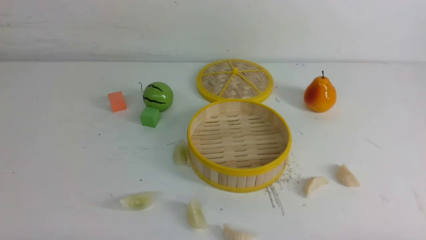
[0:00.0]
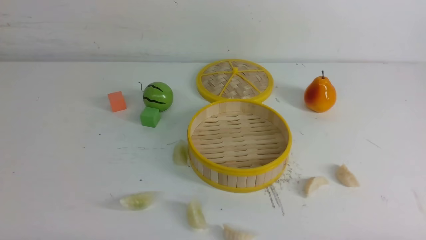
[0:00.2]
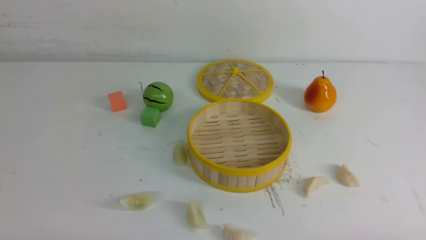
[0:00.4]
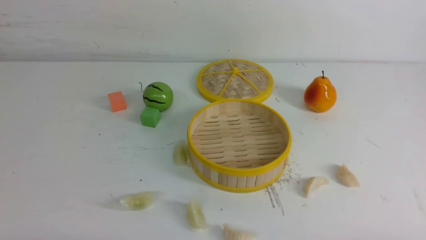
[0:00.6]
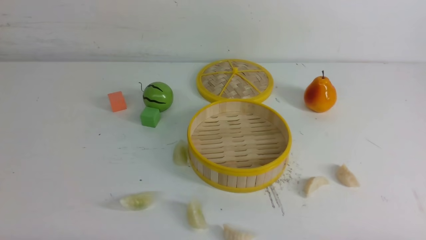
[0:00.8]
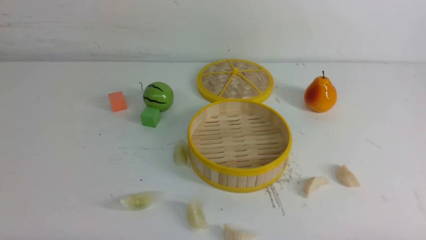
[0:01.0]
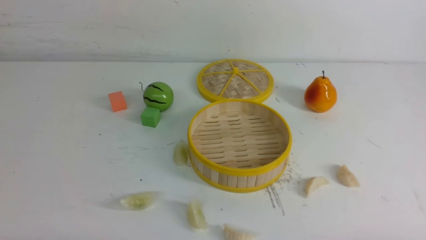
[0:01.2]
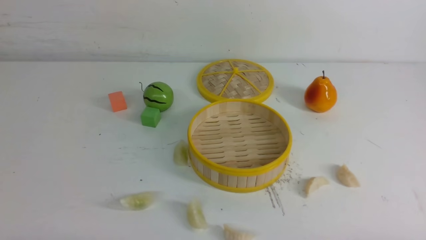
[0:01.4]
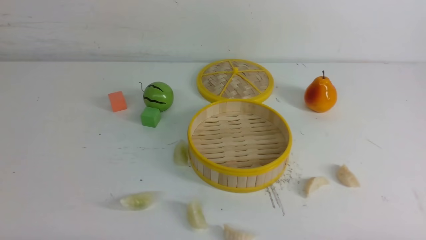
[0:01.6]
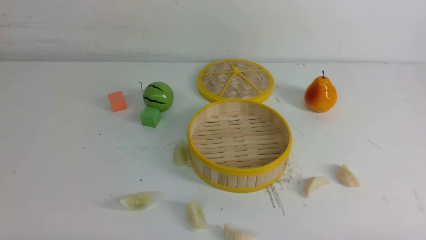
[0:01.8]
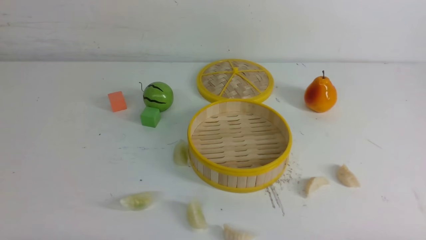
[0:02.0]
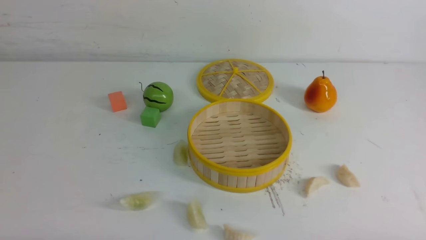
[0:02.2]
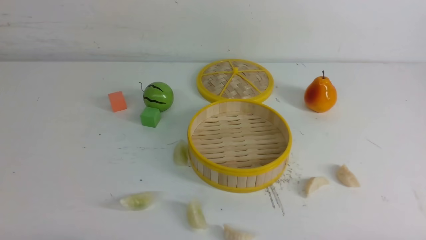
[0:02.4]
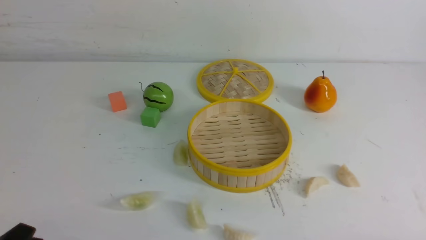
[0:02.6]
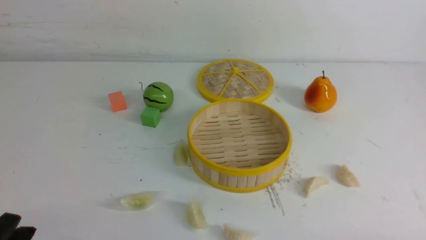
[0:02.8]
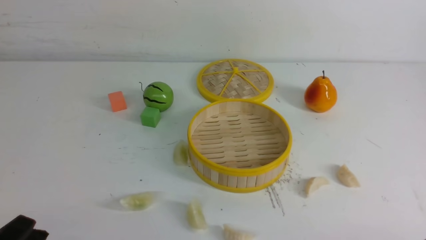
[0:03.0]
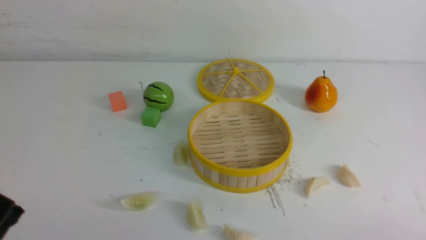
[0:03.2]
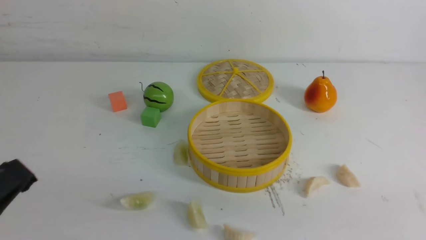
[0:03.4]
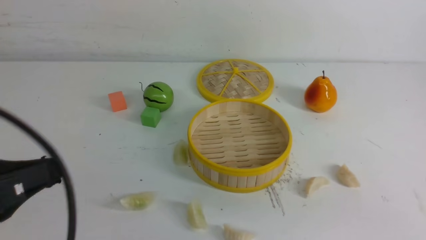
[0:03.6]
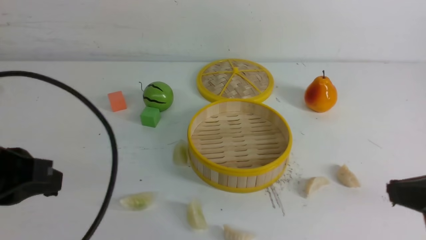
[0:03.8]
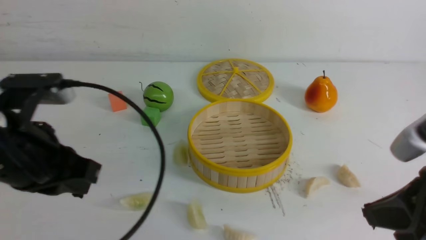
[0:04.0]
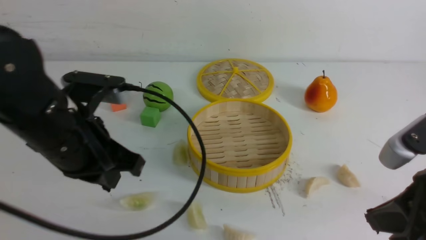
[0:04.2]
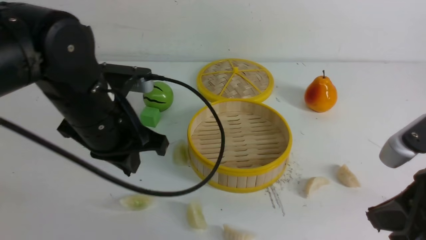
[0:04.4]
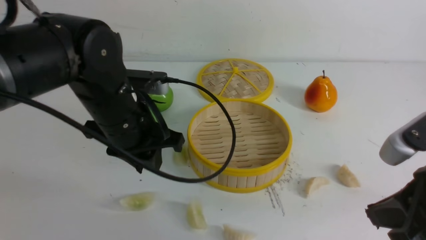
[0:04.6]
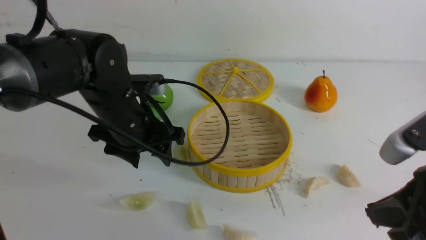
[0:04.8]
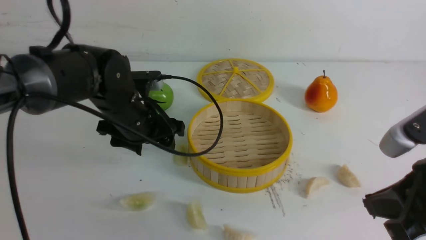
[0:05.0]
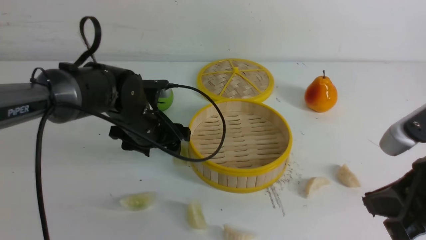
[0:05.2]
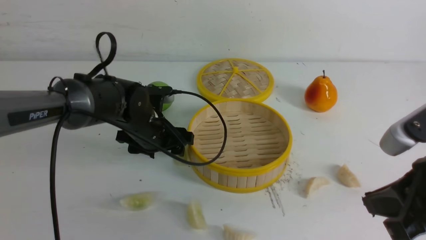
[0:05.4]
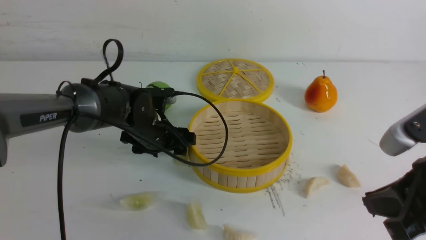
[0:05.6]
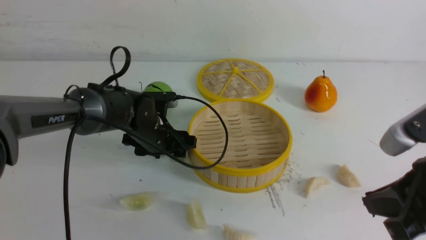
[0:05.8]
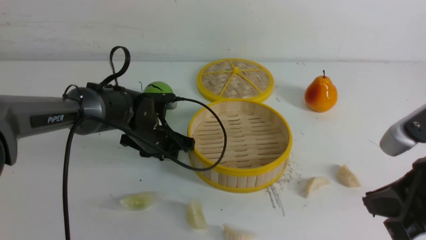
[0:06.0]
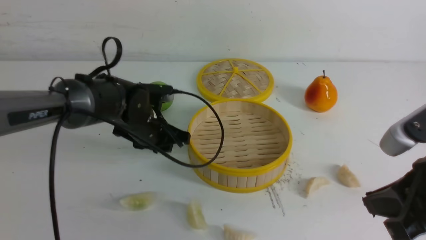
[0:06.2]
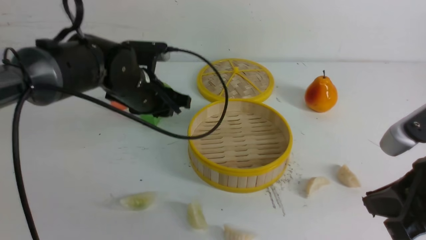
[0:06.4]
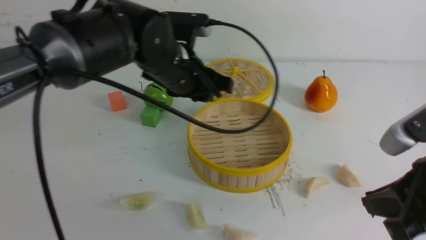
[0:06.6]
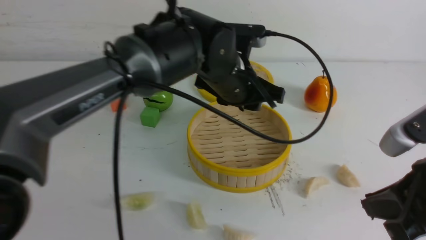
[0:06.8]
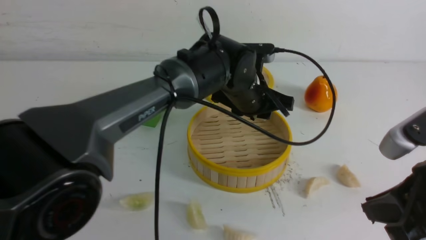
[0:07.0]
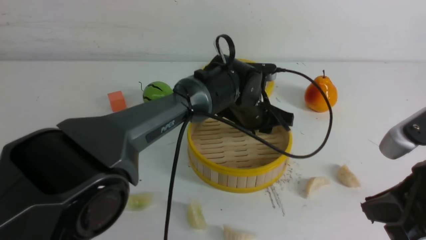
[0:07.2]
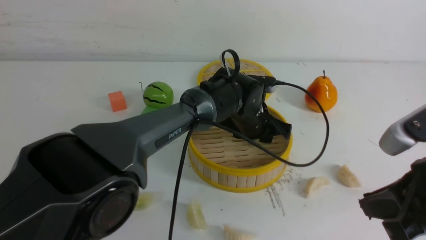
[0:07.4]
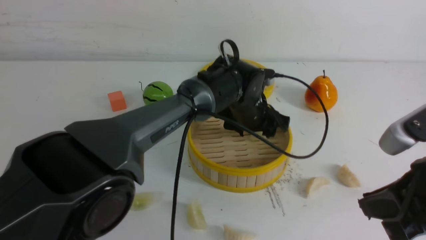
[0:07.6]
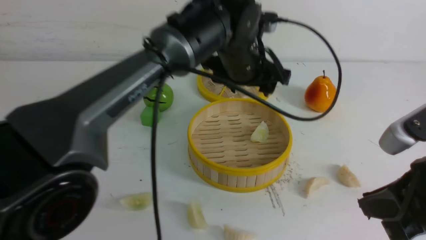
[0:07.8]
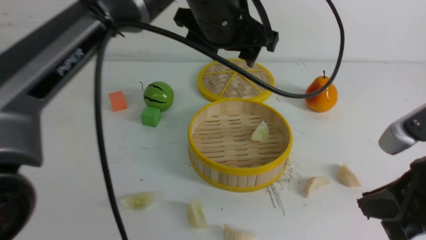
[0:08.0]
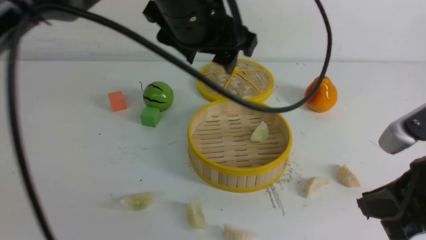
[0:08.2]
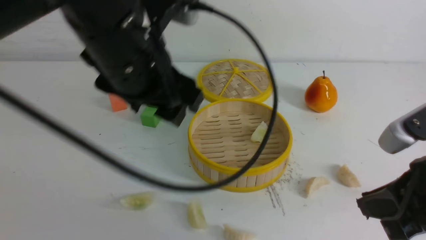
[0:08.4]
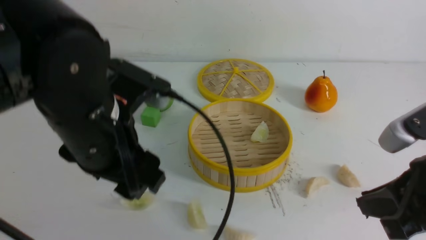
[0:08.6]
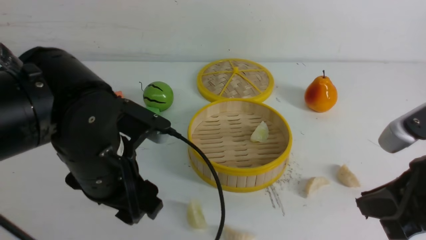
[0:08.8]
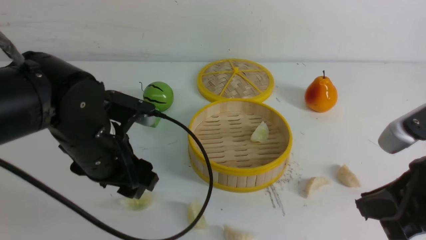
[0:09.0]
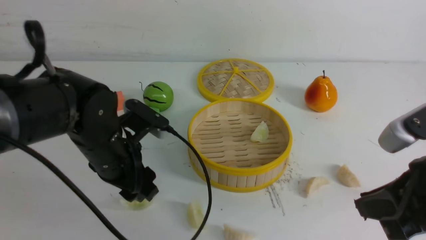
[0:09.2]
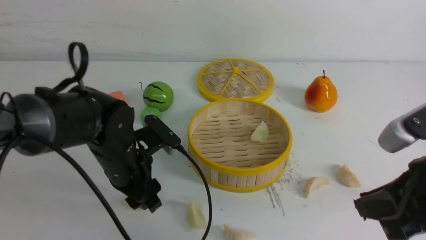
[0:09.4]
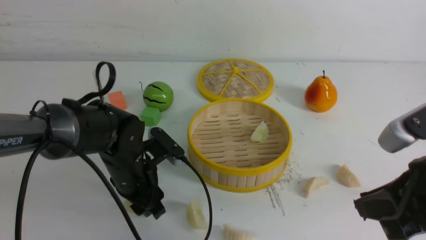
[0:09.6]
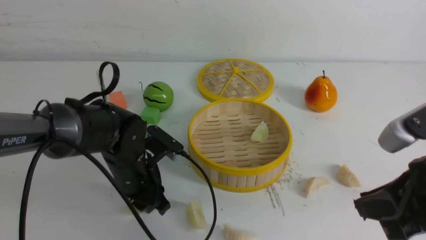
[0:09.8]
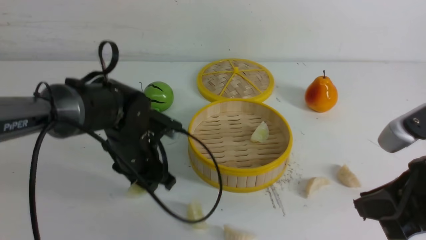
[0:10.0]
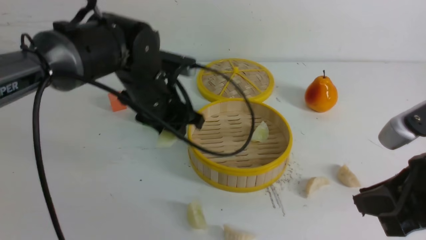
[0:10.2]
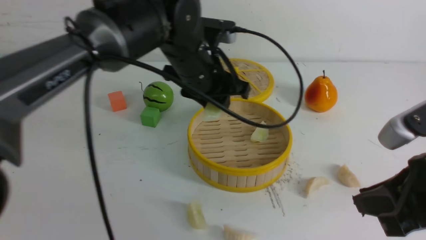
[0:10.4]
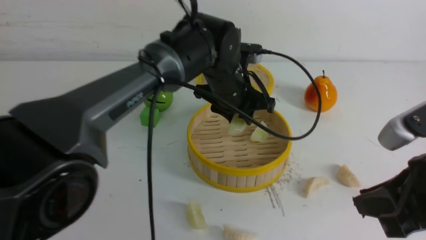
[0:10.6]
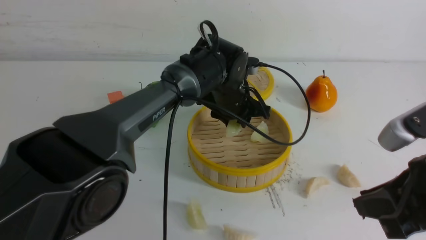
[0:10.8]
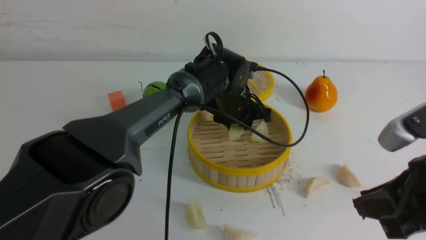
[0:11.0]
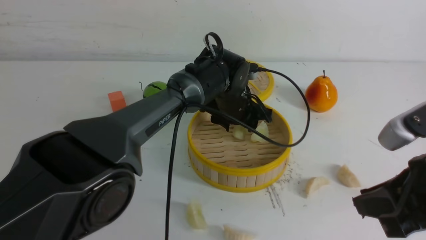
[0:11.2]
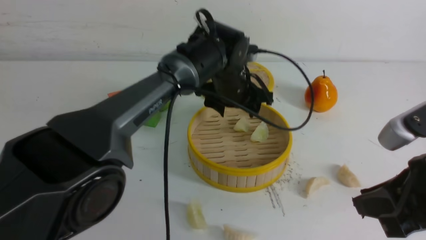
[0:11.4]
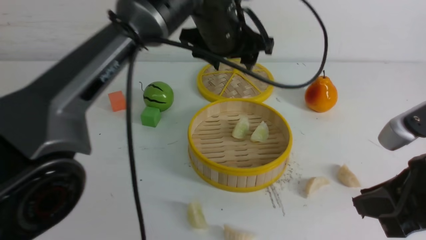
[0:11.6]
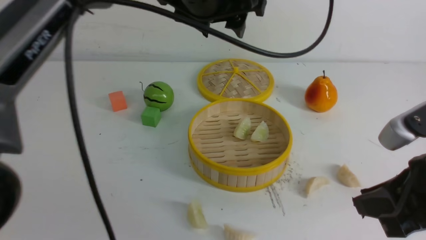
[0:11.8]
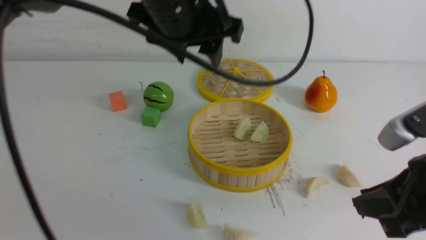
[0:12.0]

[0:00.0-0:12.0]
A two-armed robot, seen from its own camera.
Task of the whole recording: put the dumplings into the steamer on the white table.
Step, 0:00.0 to 0:06.2: use the left arm to grab a dumpling.
Step, 0:06.4 to 0:07.6: use the left arm to put the dumpling into the steamer.
Step, 0:07.8 to 0:10.0: use the left arm to grab a dumpling.
Step, 0:10.2 to 0:11.4: use the left arm to put the dumpling into the steamer.
0:00.0 to 0:01.6: The two grippers keep their place.
0:01.6 to 0:03.0: The left gripper changes place by approximately 5 cm.
0:03.0 to 0:04.4: The right gripper goes some 15 cm forward, upward and to the left, and closes its fingers, while the left gripper shifts some 25 cm forward and to the right.
0:04.4 to 0:06.0: The left gripper moves downward and forward, approximately 20 cm, and opens.
0:06.0 to 0:07.6: The left gripper goes about 20 cm to the right and upward.
0:07.6 to 0:09.0: The left gripper travels to the left and backward by approximately 25 cm.
0:09.0 to 0:10.4: The left gripper heads forward and to the right, covering about 15 cm, and closes.
0:10.4 to 0:12.0: The left gripper moves upward and backward, about 15 cm.

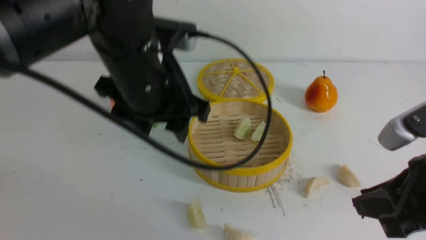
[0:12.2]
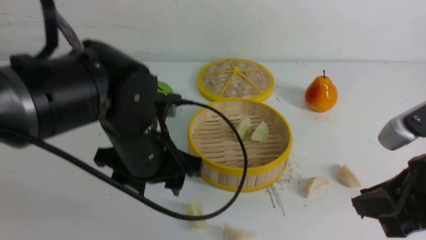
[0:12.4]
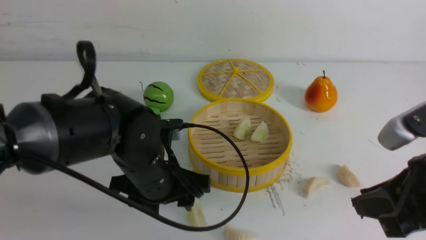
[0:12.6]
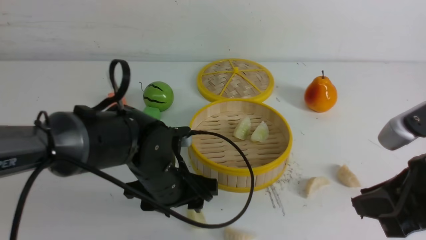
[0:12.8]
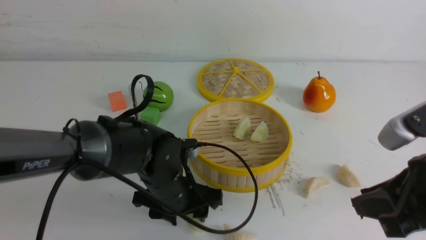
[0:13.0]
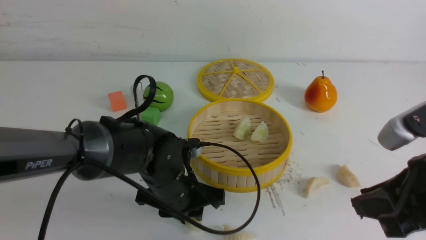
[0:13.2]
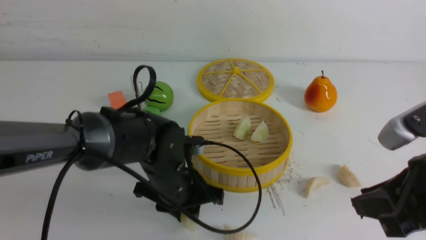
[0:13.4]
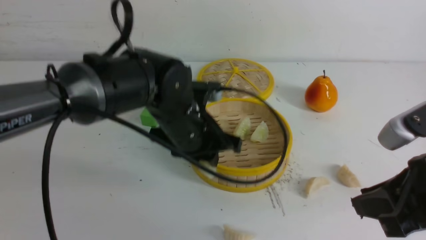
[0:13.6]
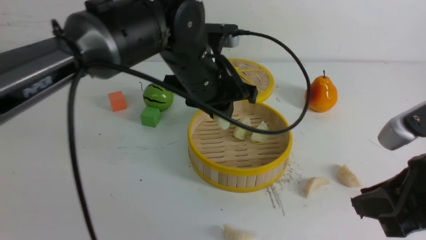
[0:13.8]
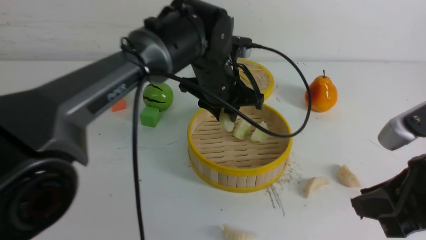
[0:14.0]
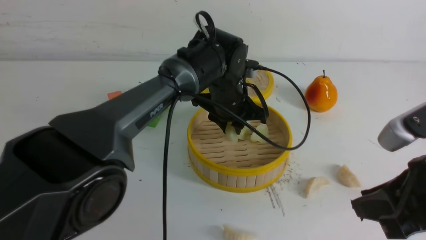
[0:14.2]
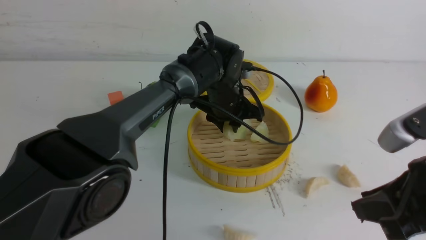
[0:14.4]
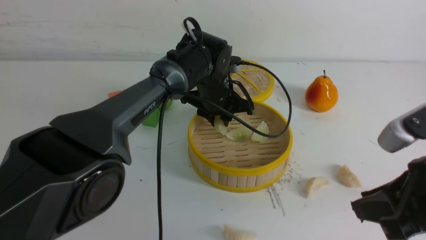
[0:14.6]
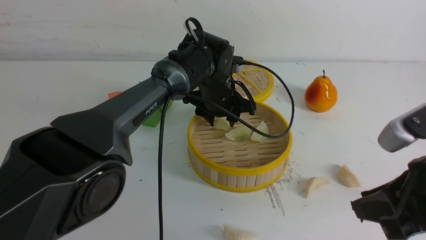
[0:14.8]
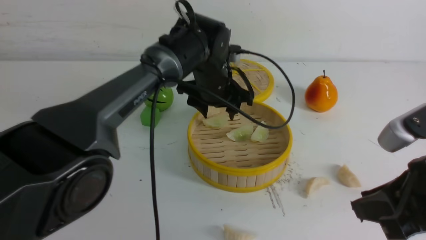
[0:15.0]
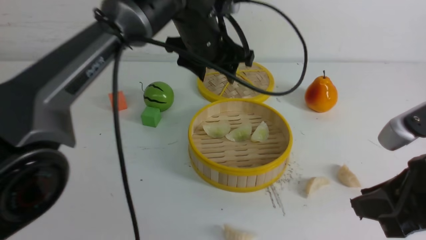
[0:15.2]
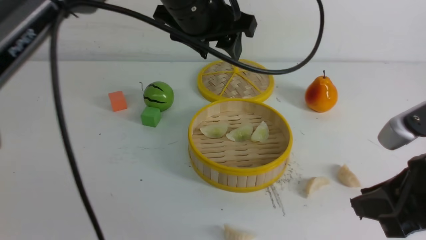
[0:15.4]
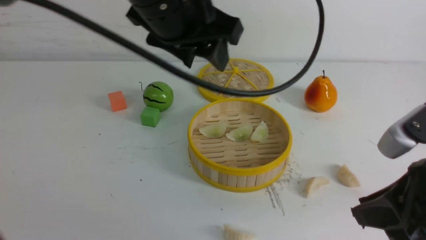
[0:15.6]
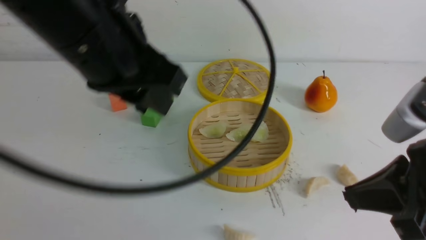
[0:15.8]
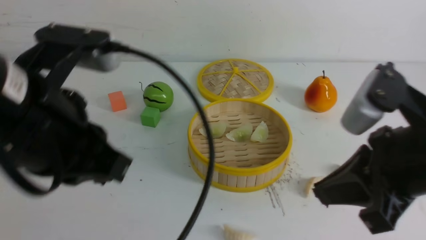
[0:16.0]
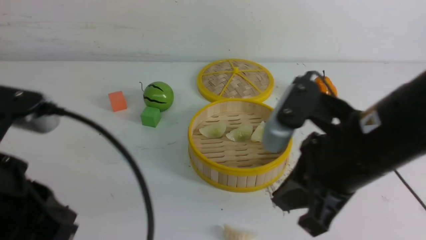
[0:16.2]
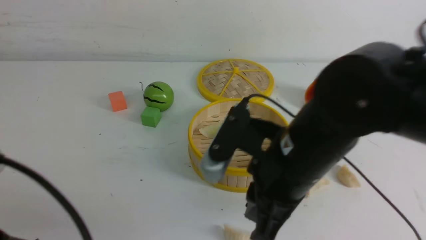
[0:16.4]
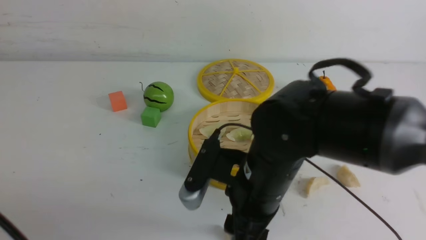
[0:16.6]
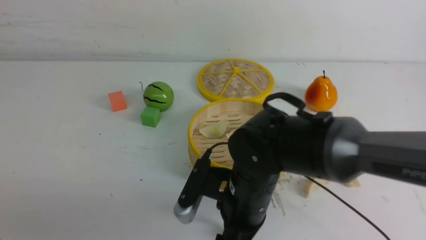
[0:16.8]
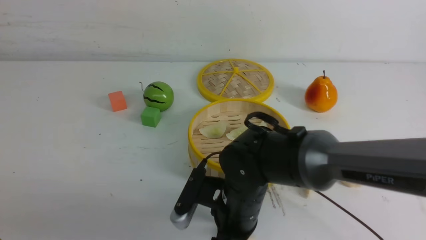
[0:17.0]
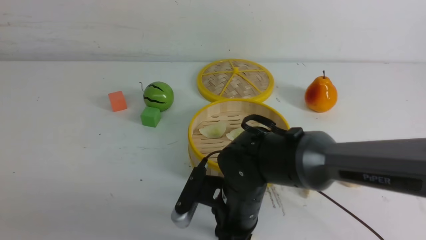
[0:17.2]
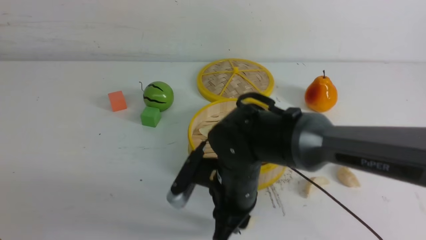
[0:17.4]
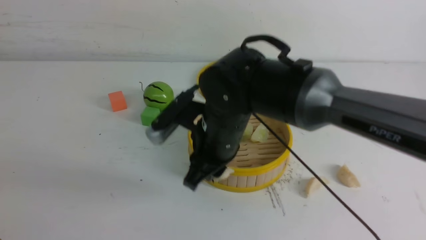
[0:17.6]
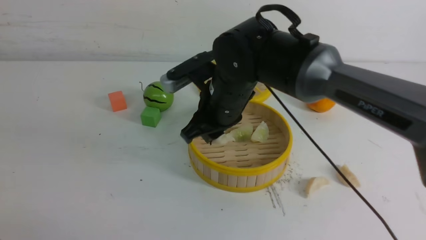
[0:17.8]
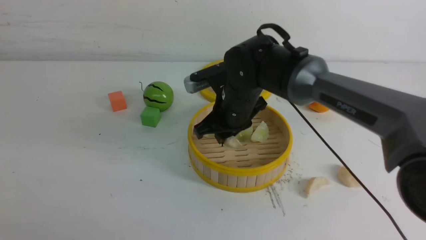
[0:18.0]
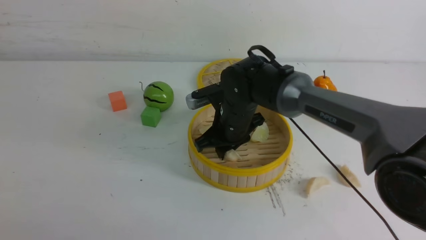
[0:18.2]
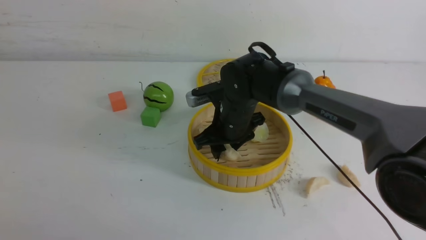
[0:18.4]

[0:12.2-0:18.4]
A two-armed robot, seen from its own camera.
Task of the whole recording: put the dumplings into the steamer on the white table.
Step, 0:12.2 to 0:13.4: use the left arm to grab a dumpling.
Step, 0:13.6 to 0:15.2: use the left arm to put the dumpling into the steamer.
Step, 0:15.4 to 0:17.2: use the right arm to grab a dumpling.
0:12.2 to 0:13.8: The left gripper moves forward and to the right, about 10 cm, travels downward and back again, about 15 cm each way, and closes up.
0:13.8 to 0:15.4: The left gripper shifts approximately 10 cm upward, and opens.
0:15.4 to 0:16.8: The right gripper travels to the left, downward and forward by some 25 cm, and opens its fingers. Meanwhile the left gripper heads backward and to the left, covering approximately 35 cm, and closes its fingers.
0:16.8 to 0:18.4: The right gripper travels forward by roughly 15 cm, and closes, then reopens.
